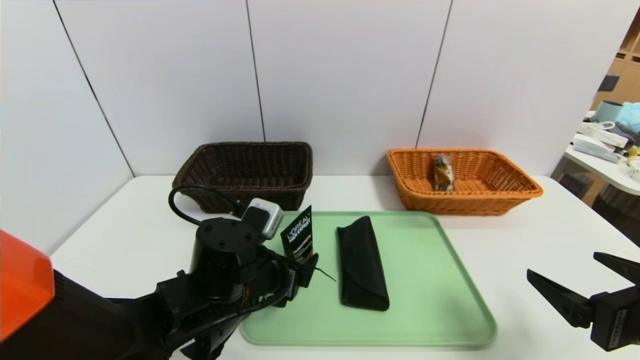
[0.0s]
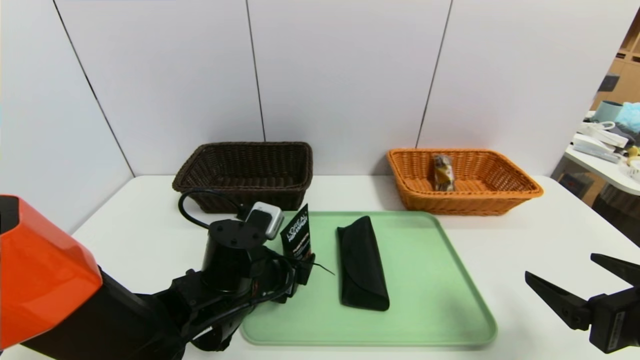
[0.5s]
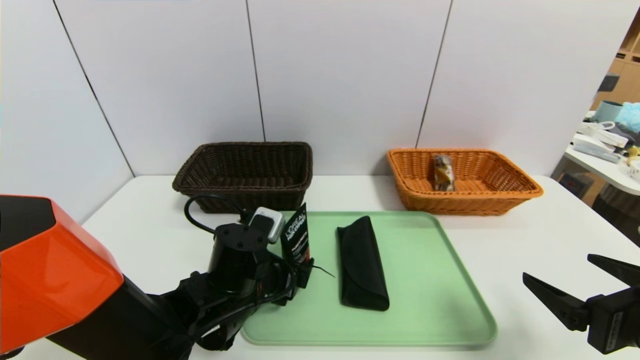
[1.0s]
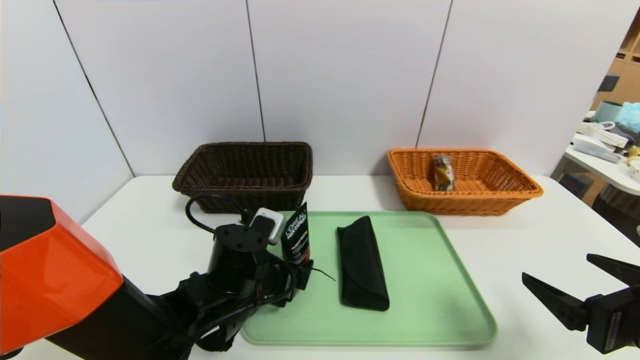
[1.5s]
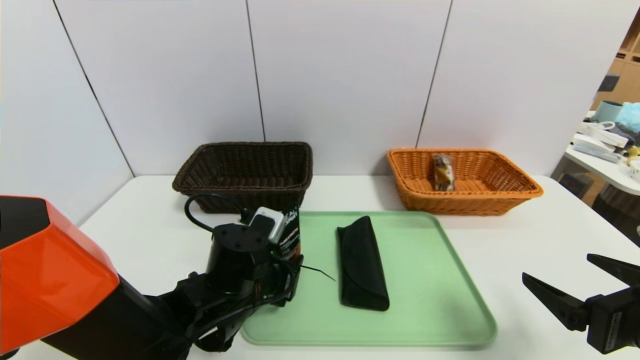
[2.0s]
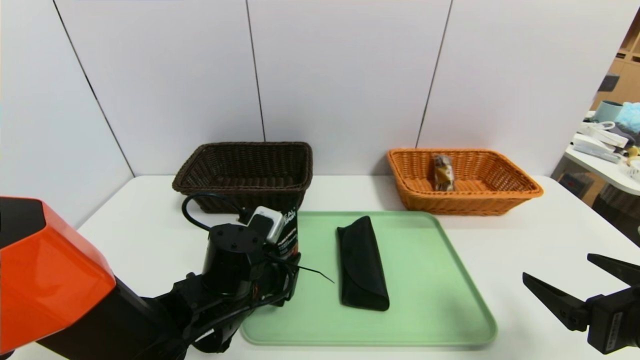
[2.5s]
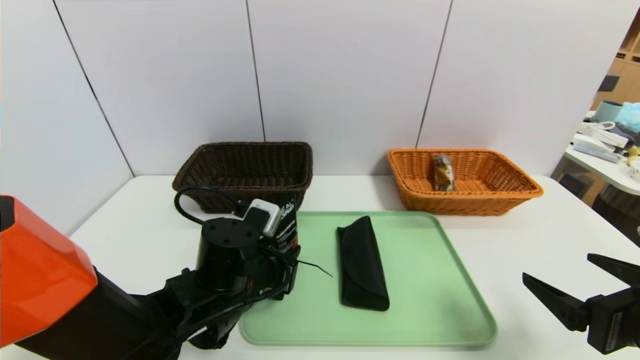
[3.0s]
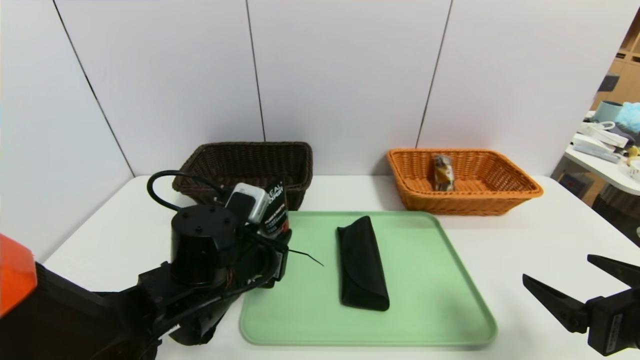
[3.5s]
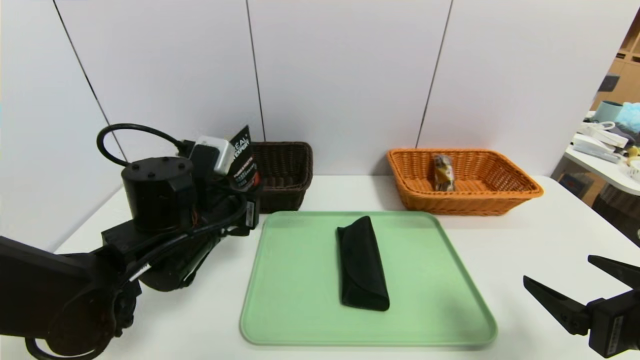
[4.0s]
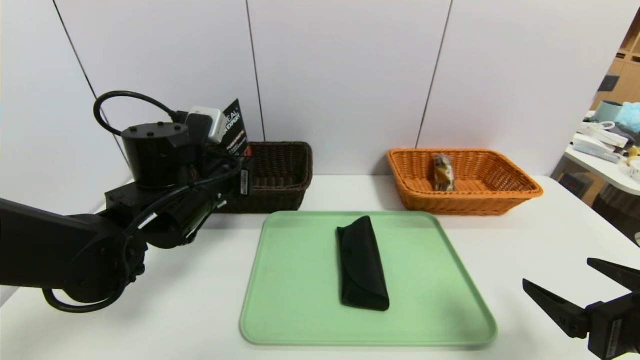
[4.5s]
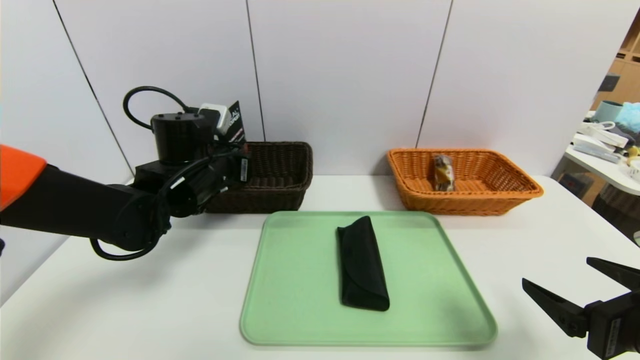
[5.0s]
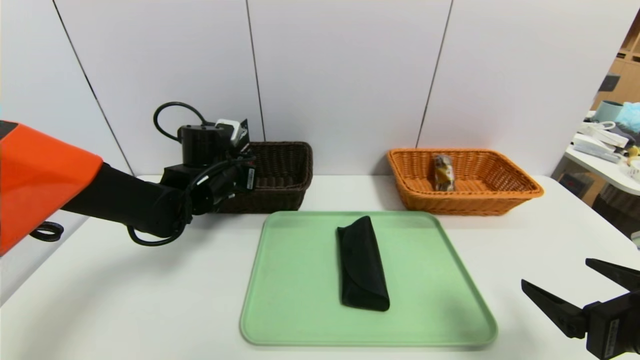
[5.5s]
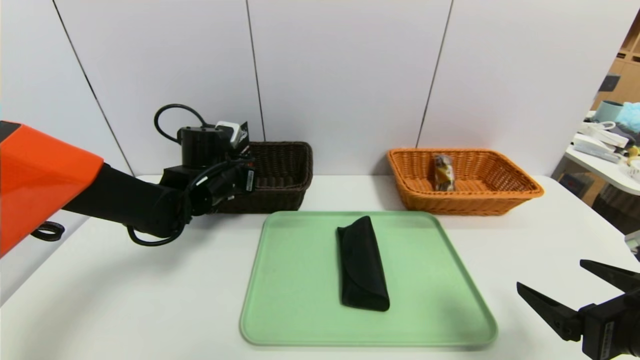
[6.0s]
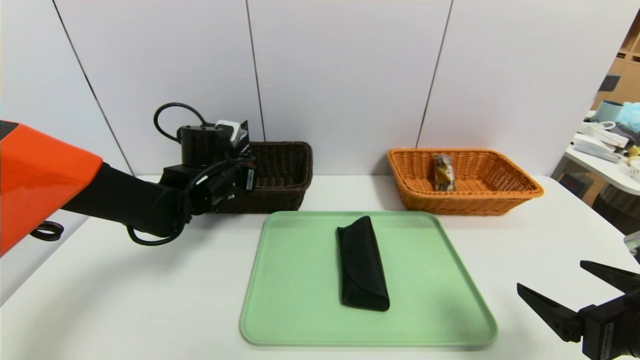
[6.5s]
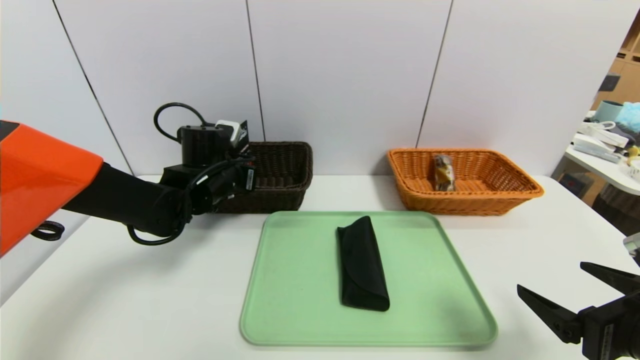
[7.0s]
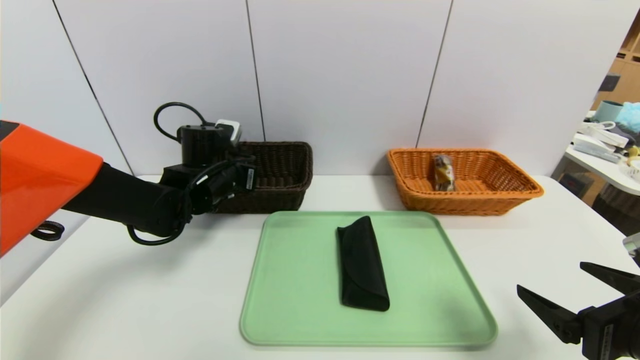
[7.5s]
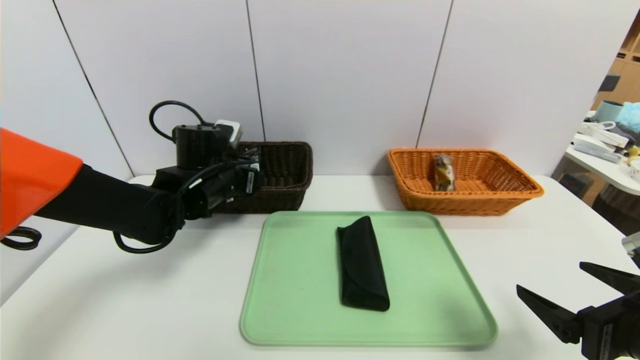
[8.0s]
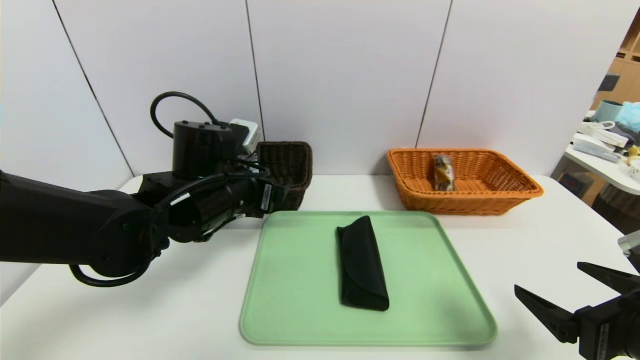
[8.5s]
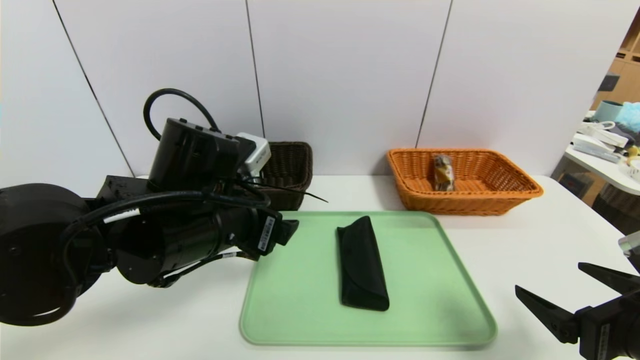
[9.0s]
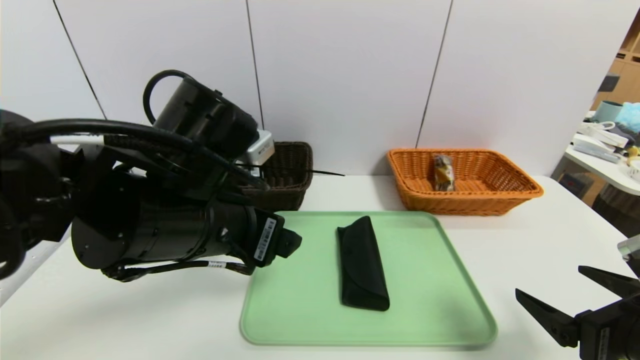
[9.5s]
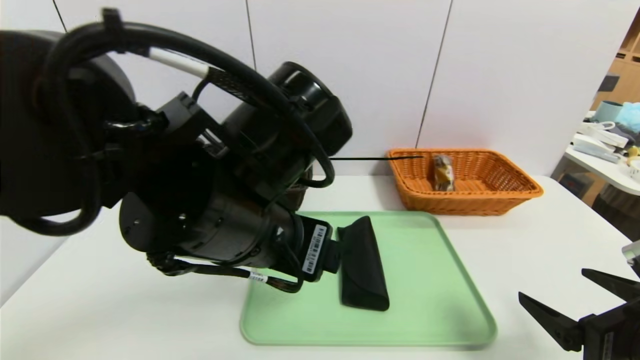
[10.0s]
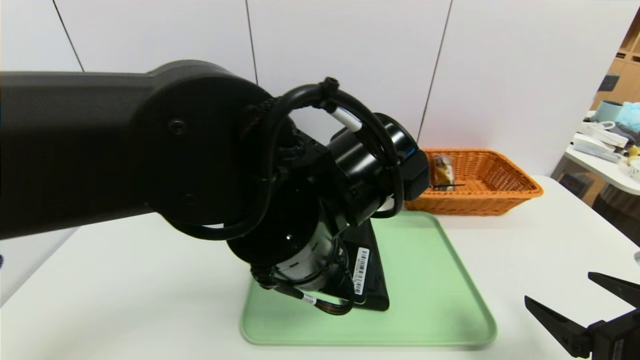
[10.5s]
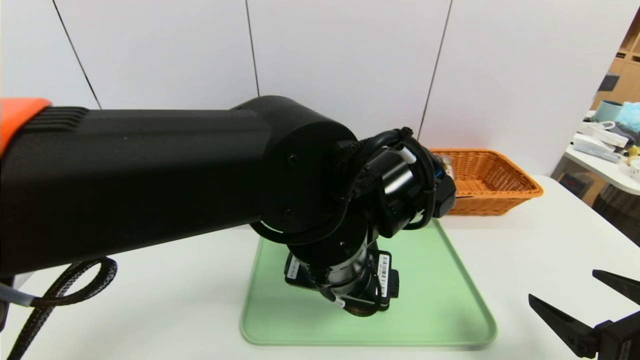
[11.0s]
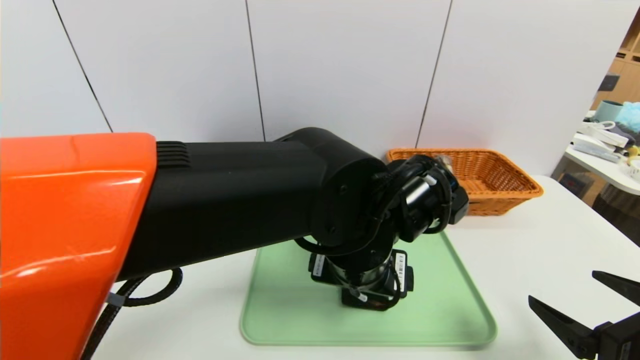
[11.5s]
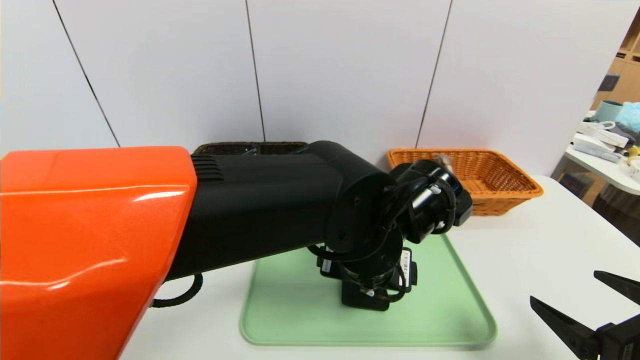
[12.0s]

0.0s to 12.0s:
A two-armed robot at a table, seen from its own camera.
Task of the whole recording: place the food in the right basket with the right gripper, and place the non food items in the left basket with the left gripper.
Step, 0.0s to 8.0s: Grasp the soft cleanser and put it in the left basket.
0.0s to 2.0s: The left gripper closes up.
2.0s to 4.0s: The left gripper is displaced upward by approximately 10 cm.
4.0s to 6.0s: The left gripper travels forward by roughly 10 cm.
6.0s to 8.0s: The left gripper opens its fingers.
8.0s to 10.0s: The left gripper travels backward, to the right and upward by some 25 cm.
10.0s to 12.0s: The left gripper moves to the right and downward, approximately 15 cm.

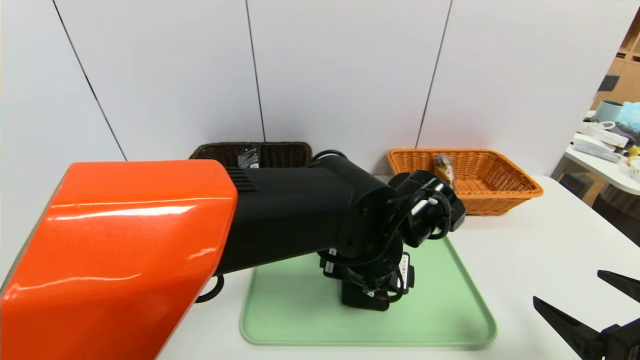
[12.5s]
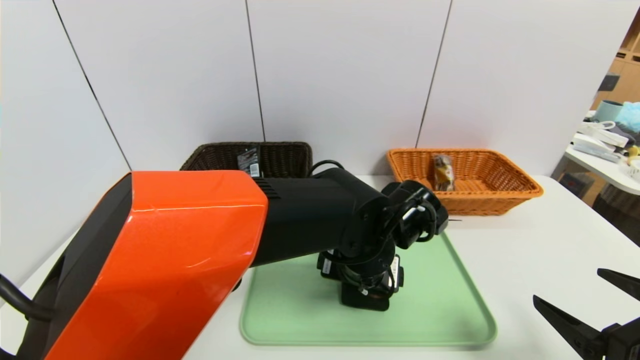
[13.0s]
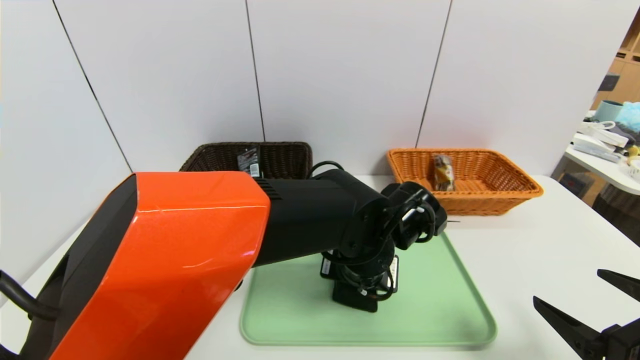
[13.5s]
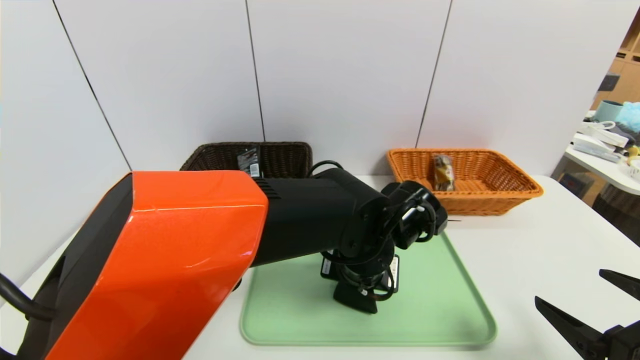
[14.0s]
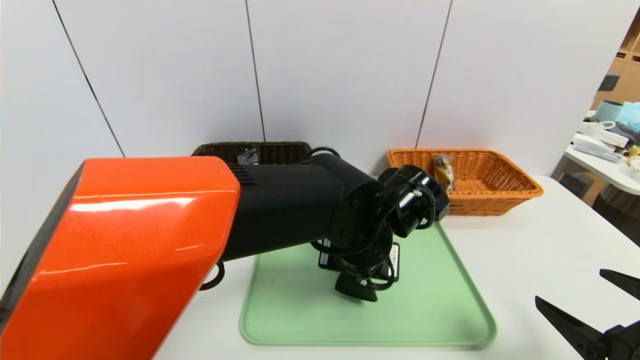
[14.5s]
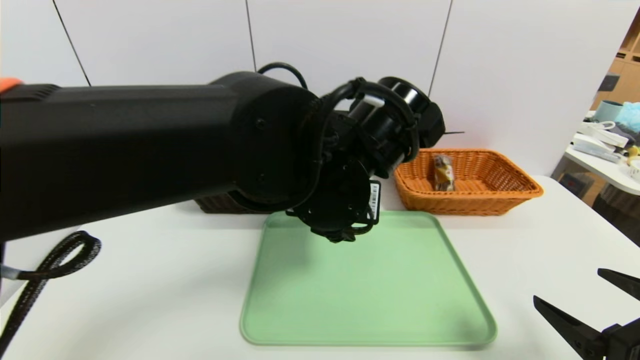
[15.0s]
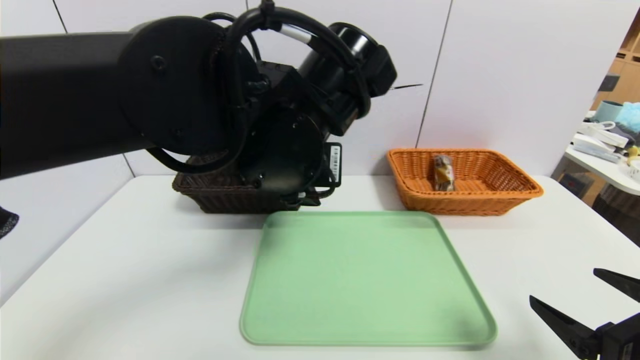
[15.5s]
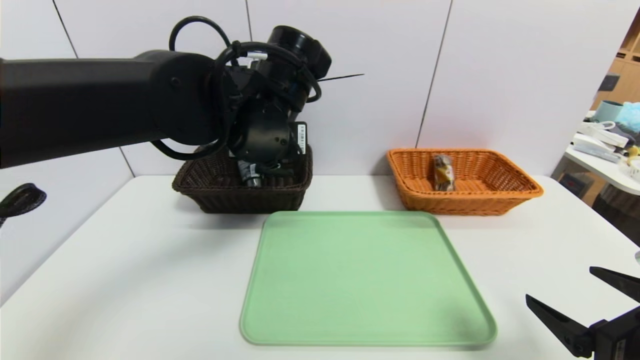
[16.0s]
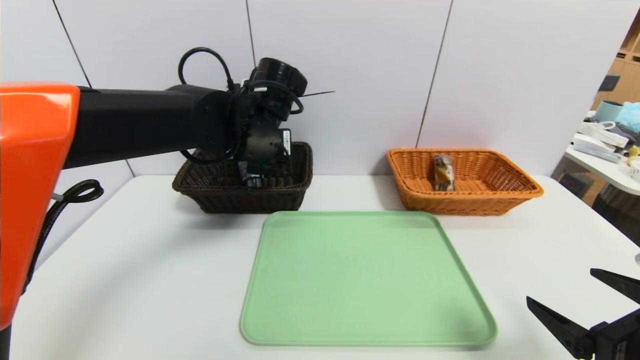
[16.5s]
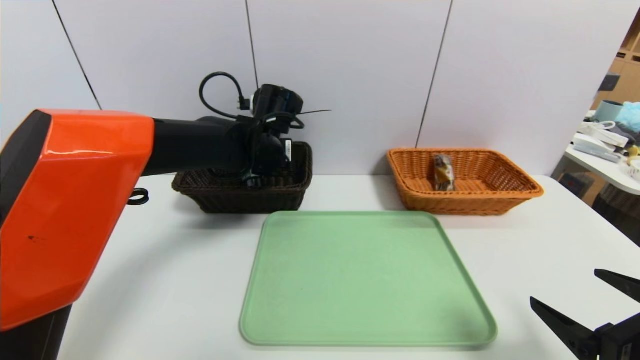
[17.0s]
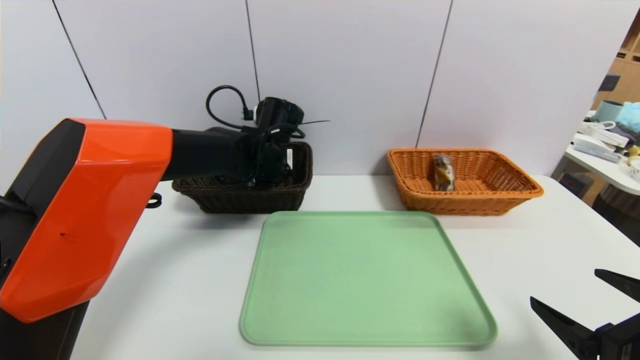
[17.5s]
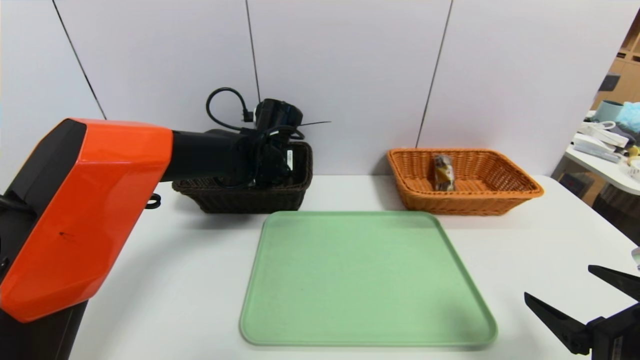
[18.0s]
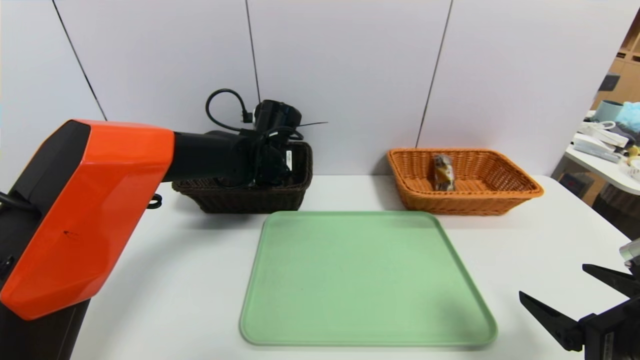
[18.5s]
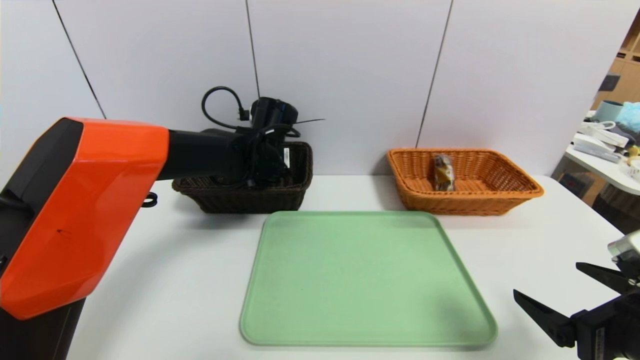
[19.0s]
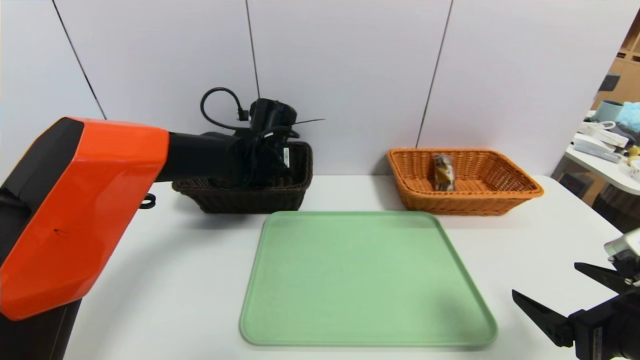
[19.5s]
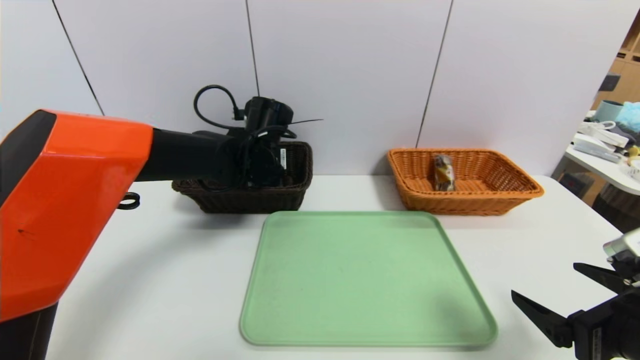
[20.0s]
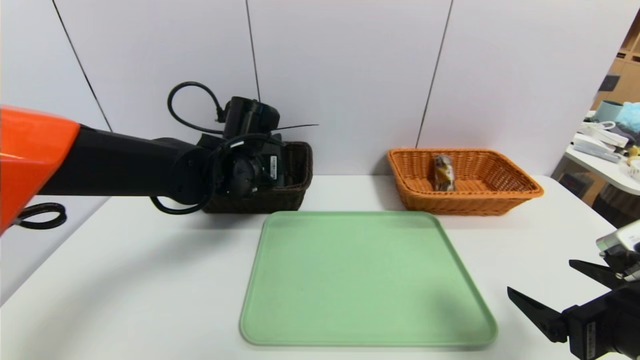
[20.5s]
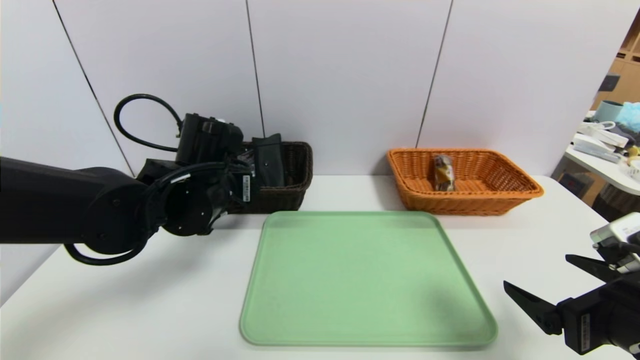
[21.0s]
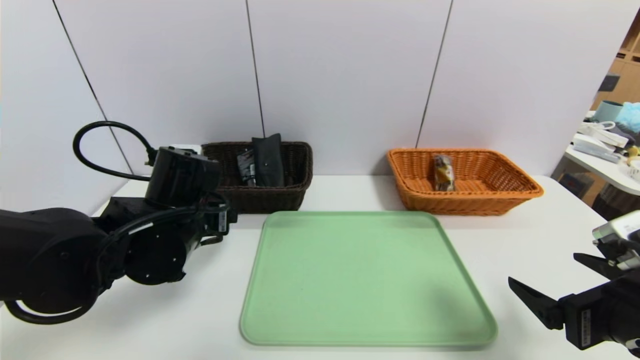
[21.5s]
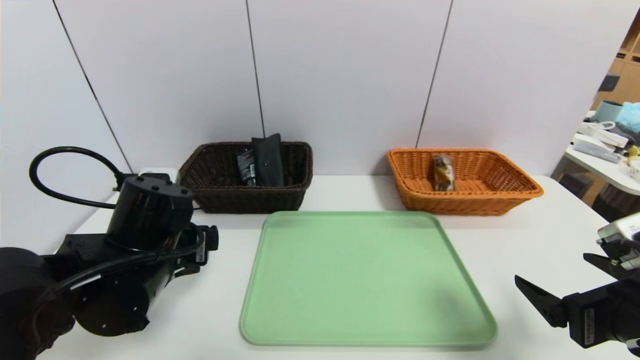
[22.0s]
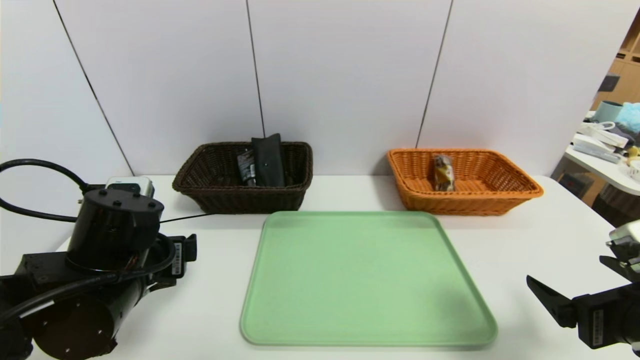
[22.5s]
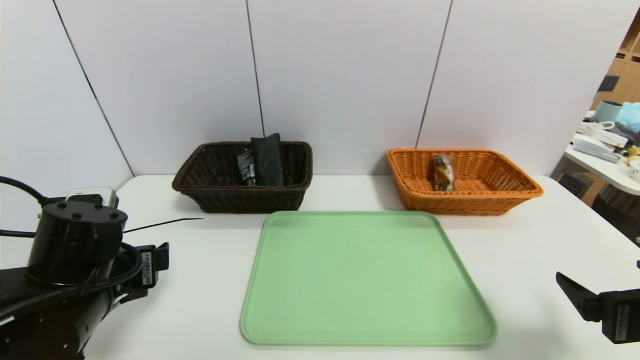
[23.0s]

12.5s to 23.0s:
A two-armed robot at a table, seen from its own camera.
Task of the whole recording: place the food in the right basket with the right gripper, and place the non food items in the left basket with the left gripper.
Step, 12.5s to 20.0s: Grasp the glasses case and put it in the left basket.
12.5s to 14.5s: The left gripper closes up.
14.5s to 16.5s: The left gripper heads to the left, forward and upward, covering approximately 20 cm.
16.5s to 19.0s: The left gripper heads forward and downward, covering about 10 cm.
19.0s to 21.0s: The left gripper shifts roughly 15 cm backward, and opens up.
21.0s to 23.0s: The left gripper heads backward and to the left, covering approximately 15 cm.
